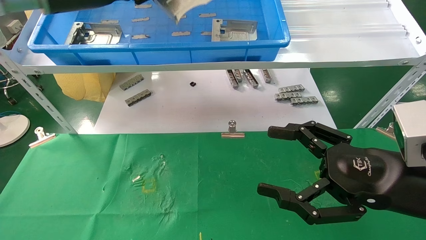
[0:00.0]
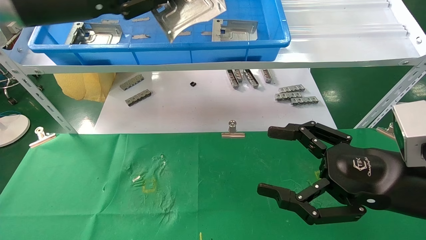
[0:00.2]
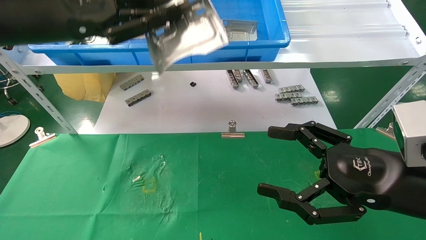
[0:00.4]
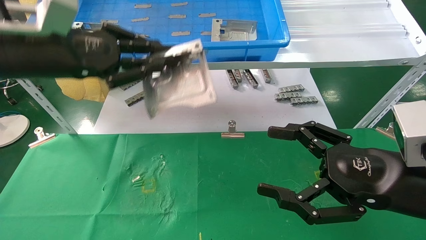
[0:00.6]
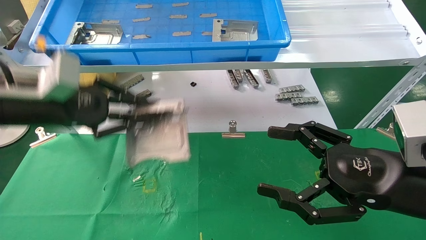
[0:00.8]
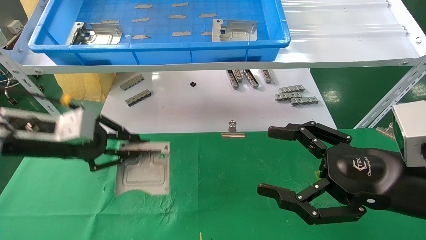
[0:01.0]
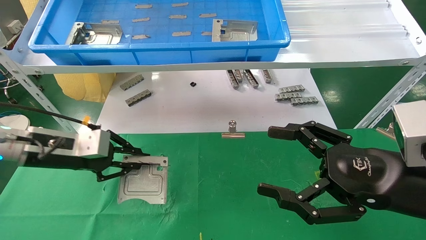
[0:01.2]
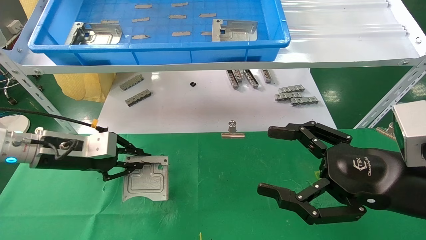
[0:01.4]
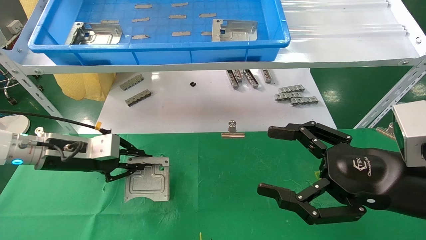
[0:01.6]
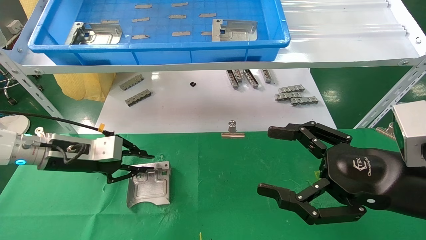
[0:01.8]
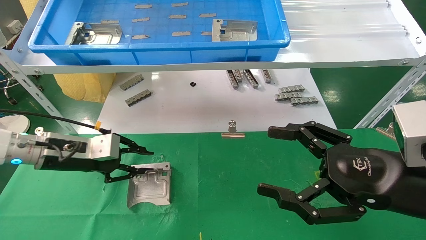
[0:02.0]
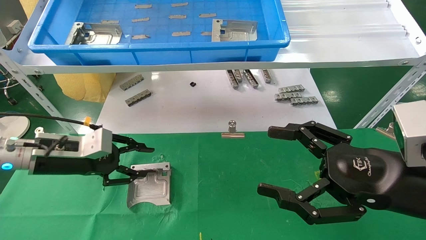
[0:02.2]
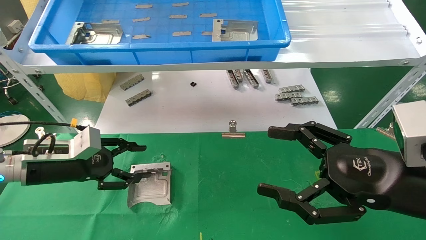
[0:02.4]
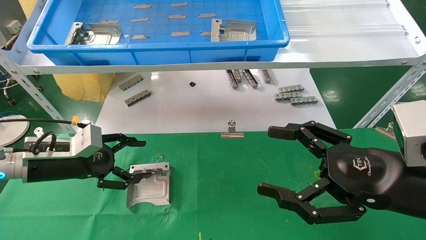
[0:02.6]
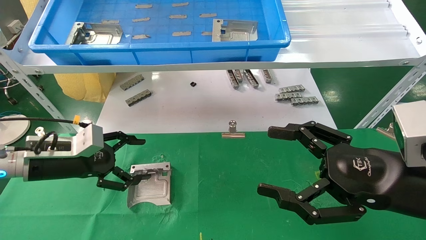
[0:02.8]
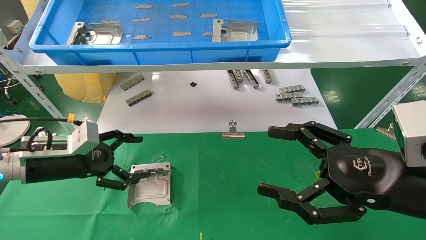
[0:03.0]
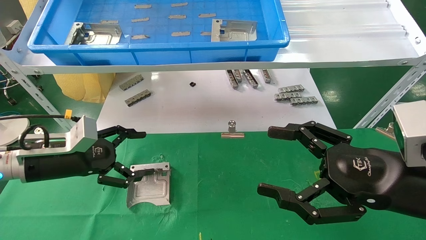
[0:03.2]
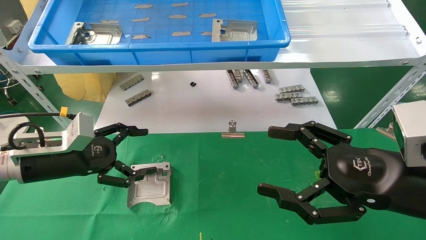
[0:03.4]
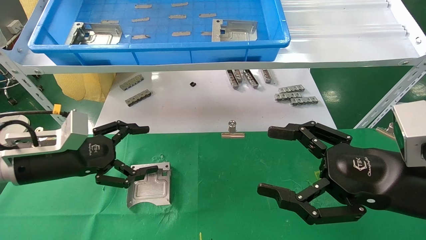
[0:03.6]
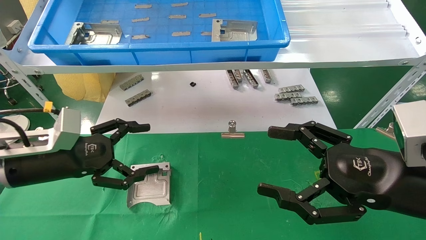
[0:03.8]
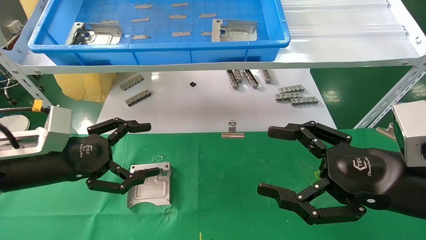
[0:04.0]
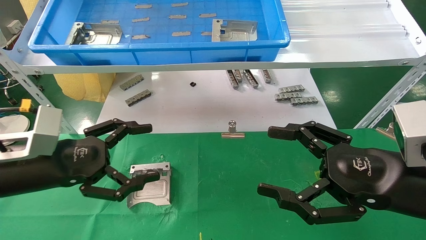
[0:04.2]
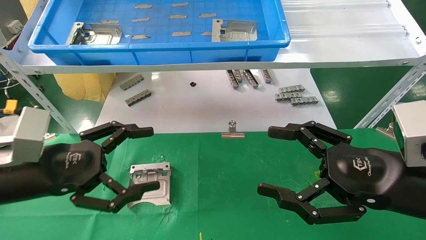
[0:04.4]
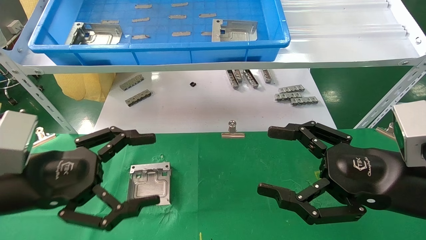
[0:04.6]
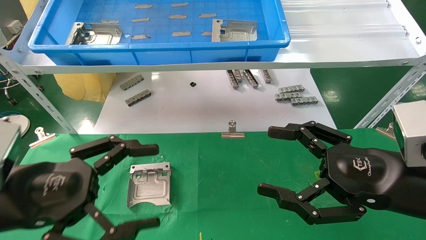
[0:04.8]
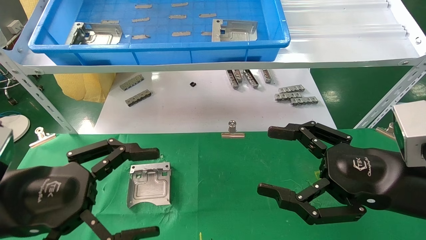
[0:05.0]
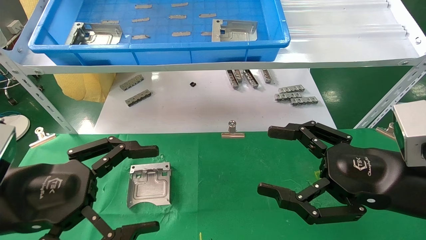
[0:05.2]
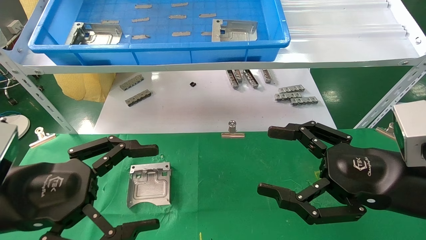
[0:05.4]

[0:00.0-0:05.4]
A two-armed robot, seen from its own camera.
Task of the whole recording: use the mechanical arm to pick up the parts and place them on the table.
Step, 0:00.0 to 0:02.8: Place the hard drive bracket into the box.
0:00.0 to 0:01.4: The left gripper moves downward, roughly 25 cm.
0:01.4 to 0:02.8: The left gripper opens.
0:02.8 to 0:04.0: The left gripper heads backward, covering roughly 5 cm.
0:04.0 to 0:05.4: The left gripper heads backward, covering about 10 cm.
